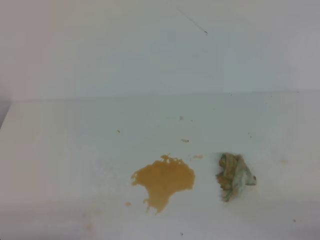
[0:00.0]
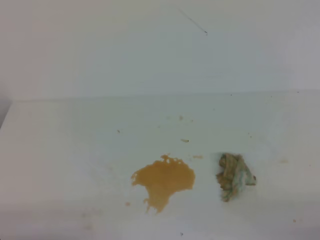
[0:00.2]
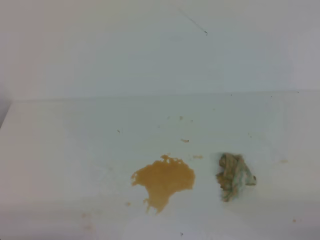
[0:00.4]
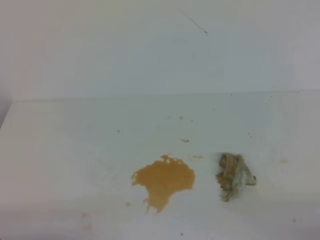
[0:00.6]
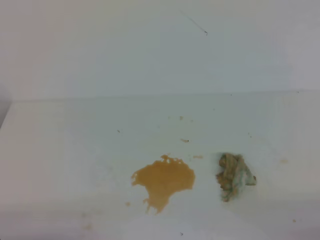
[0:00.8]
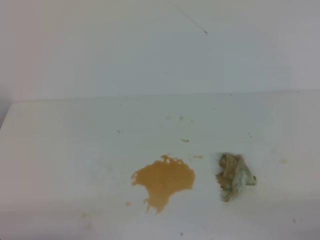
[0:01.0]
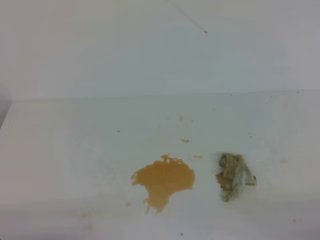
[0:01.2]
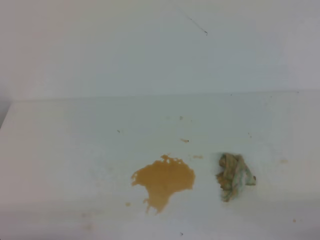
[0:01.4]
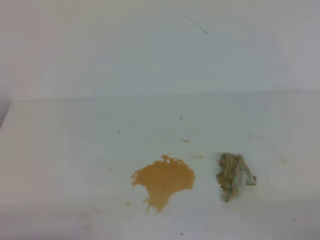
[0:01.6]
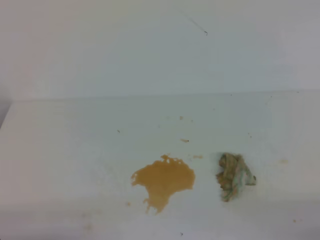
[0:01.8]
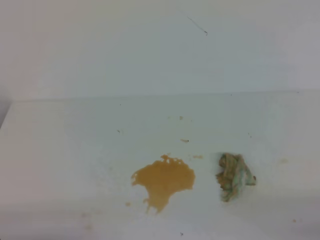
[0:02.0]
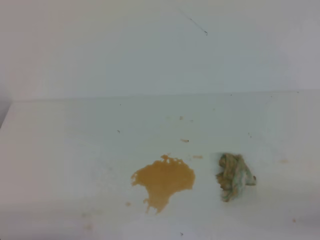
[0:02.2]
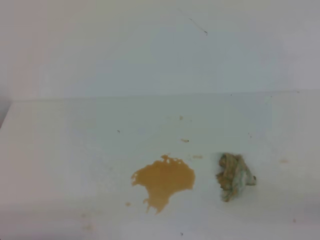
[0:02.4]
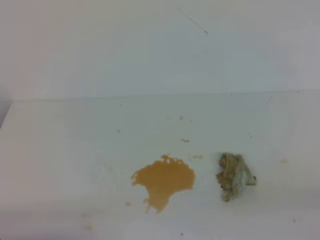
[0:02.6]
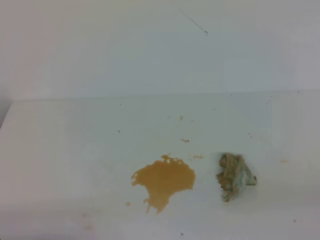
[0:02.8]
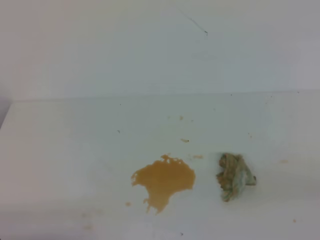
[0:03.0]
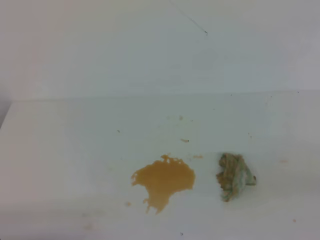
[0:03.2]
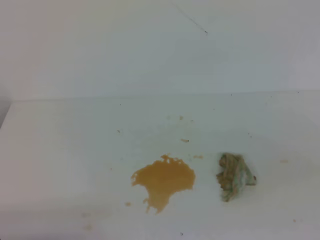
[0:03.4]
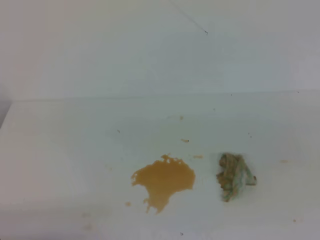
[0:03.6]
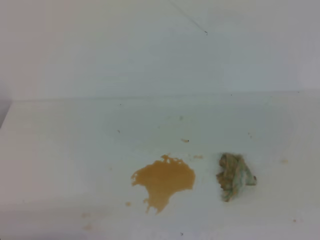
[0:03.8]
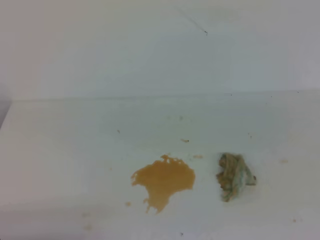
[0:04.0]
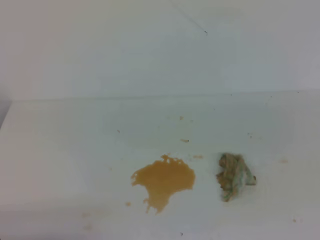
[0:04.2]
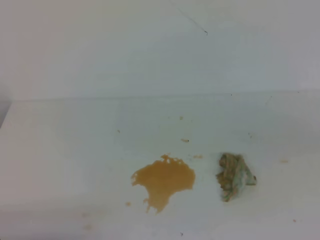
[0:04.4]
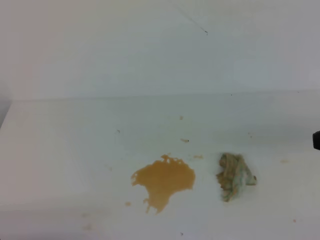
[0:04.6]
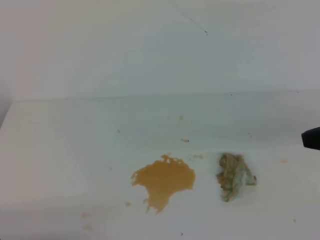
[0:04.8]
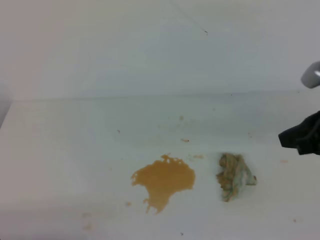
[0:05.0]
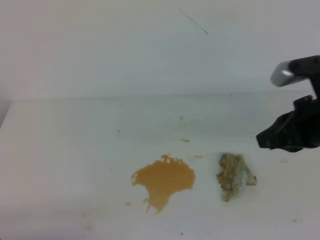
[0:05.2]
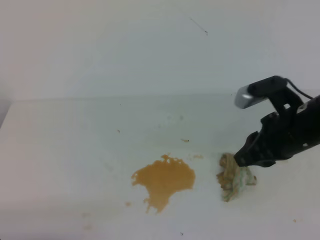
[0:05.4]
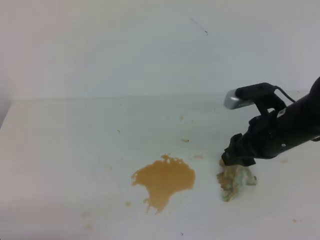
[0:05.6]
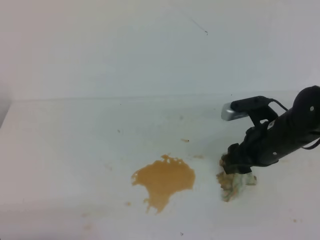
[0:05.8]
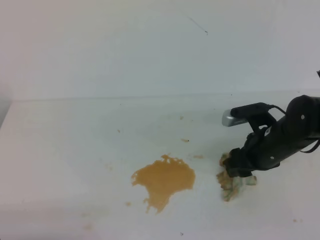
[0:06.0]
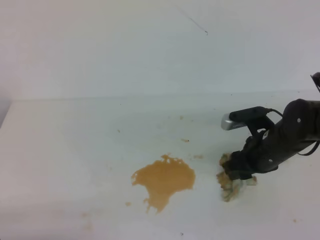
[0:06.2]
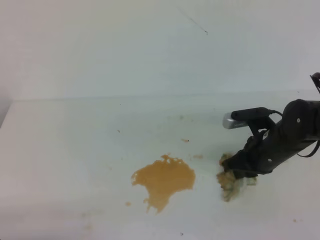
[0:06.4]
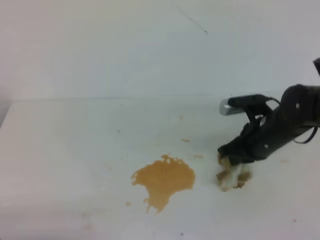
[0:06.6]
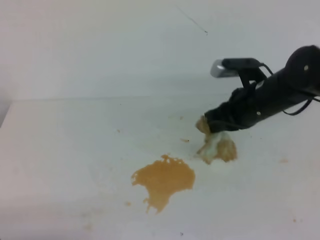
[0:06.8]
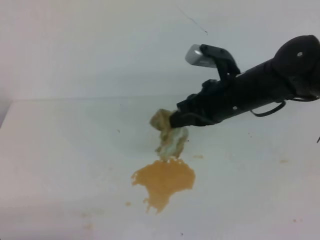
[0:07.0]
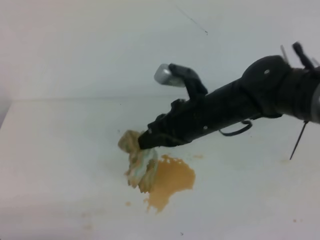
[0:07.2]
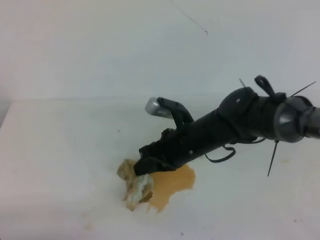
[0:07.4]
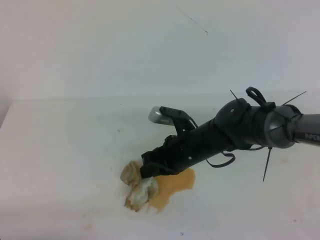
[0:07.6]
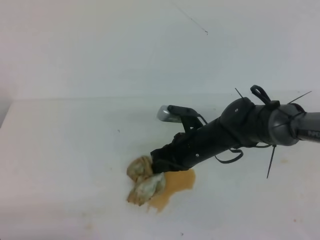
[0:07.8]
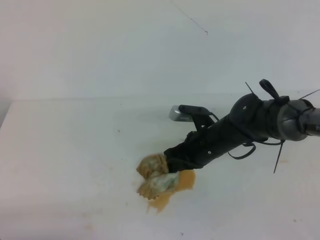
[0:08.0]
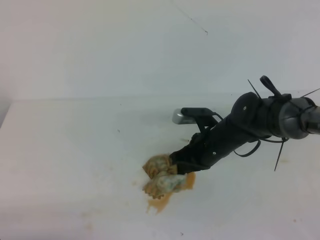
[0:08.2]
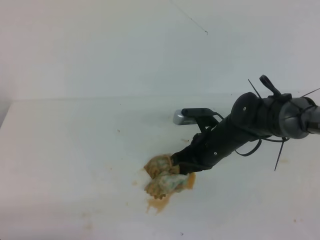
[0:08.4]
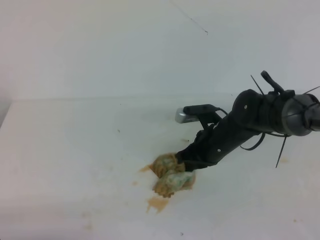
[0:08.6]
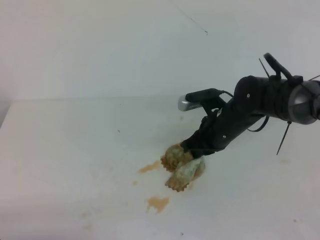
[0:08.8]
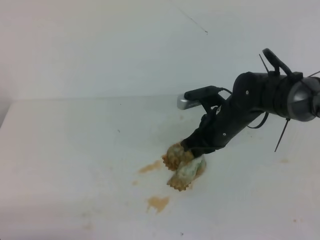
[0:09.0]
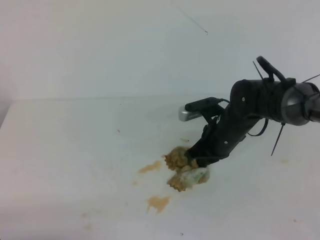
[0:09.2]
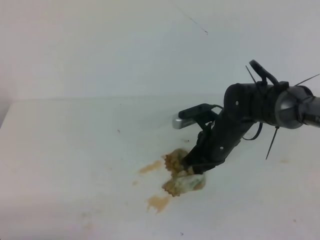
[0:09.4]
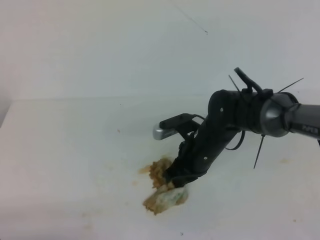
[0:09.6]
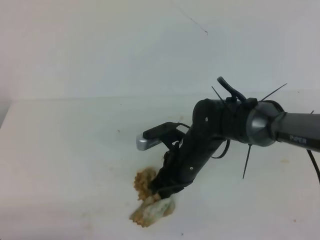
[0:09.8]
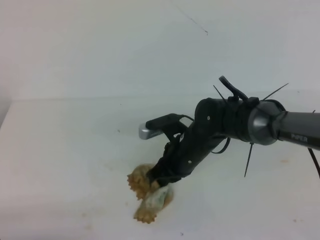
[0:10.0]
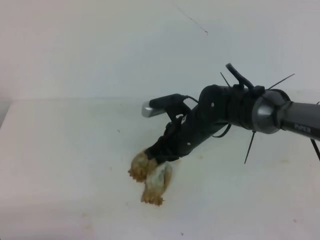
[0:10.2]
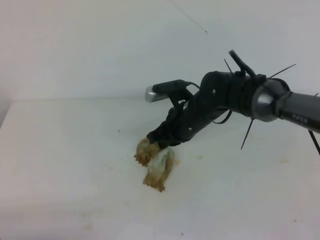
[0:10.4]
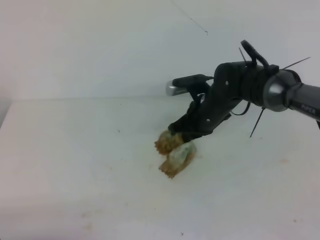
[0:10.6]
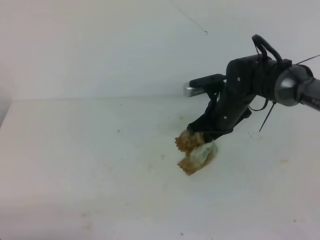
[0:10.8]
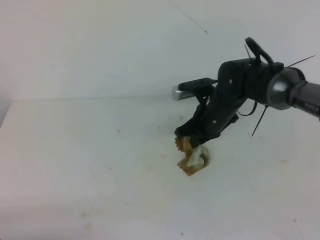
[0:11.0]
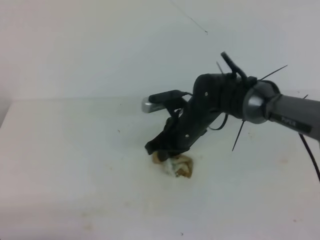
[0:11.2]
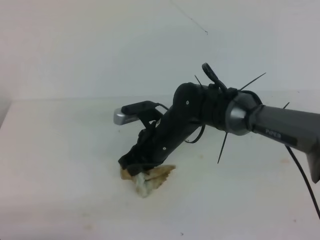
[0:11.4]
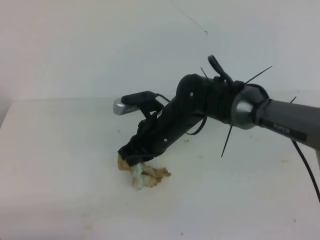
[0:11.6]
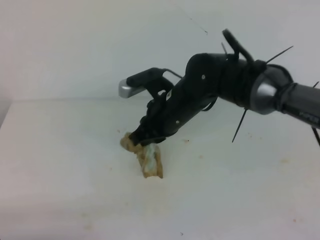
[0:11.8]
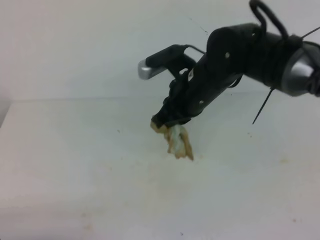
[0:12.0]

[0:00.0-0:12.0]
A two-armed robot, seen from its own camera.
0:04.4 to 0:06.0: The right gripper travels forward, downward and to the left by approximately 25 cm, and opens up.
0:06.0 to 0:07.6: The right gripper heads to the left, covering some 15 cm, and closes.
0:07.6 to 0:09.0: The right gripper travels to the right by approximately 5 cm.
0:09.0 to 0:10.4: The right gripper travels to the left by about 5 cm.
0:10.4 to 0:12.0: The right gripper goes roughly 10 cm upward.

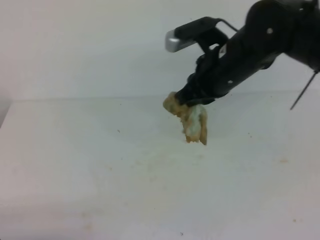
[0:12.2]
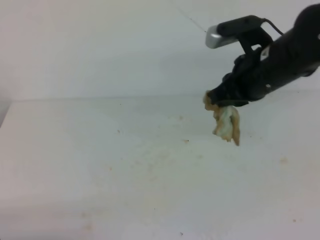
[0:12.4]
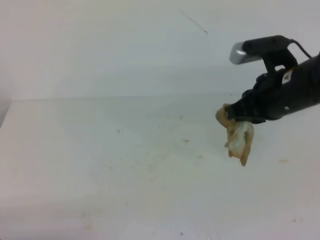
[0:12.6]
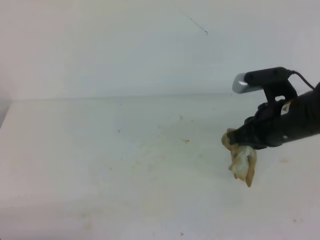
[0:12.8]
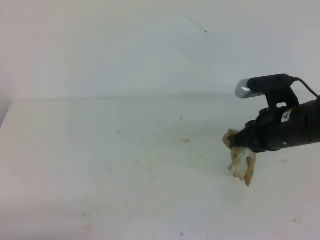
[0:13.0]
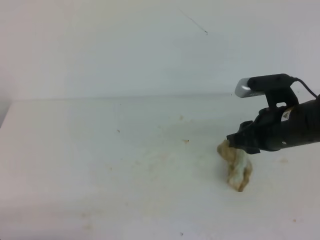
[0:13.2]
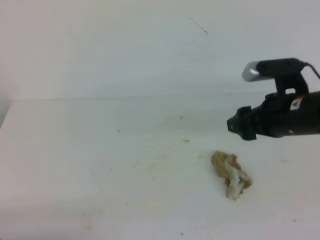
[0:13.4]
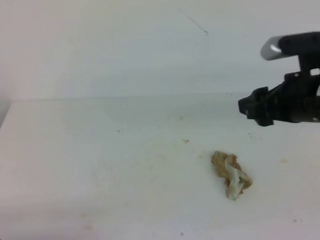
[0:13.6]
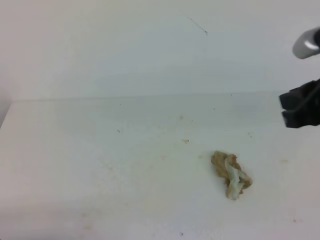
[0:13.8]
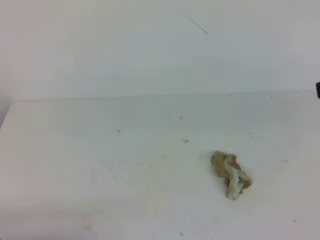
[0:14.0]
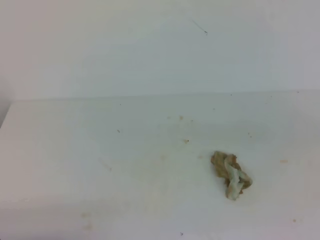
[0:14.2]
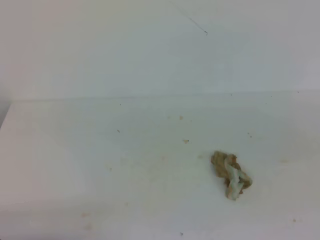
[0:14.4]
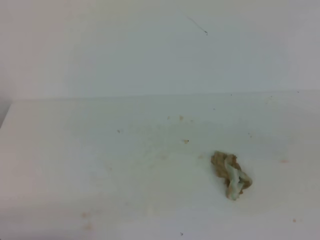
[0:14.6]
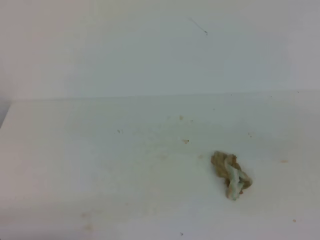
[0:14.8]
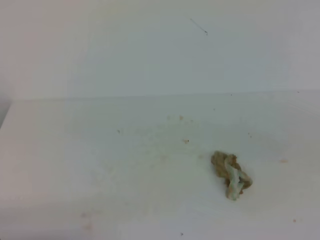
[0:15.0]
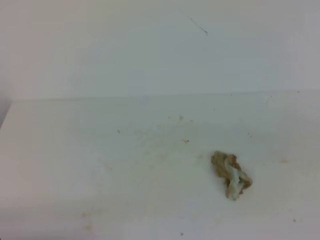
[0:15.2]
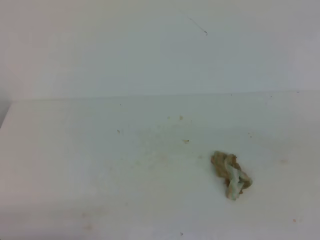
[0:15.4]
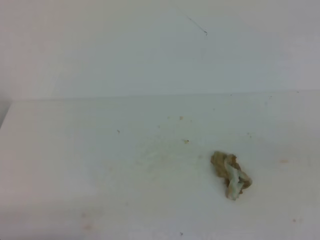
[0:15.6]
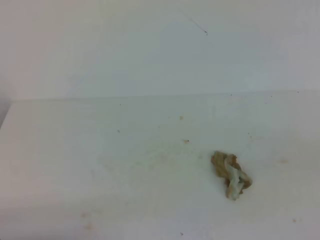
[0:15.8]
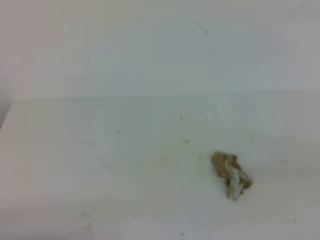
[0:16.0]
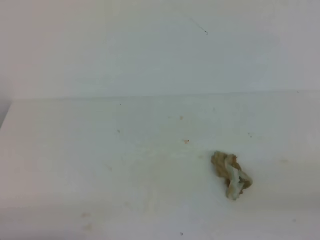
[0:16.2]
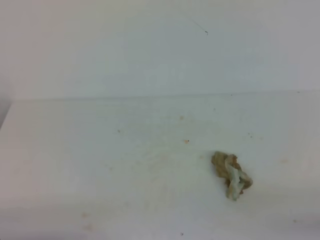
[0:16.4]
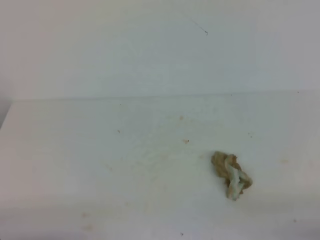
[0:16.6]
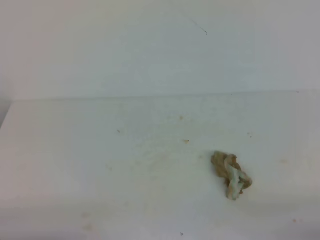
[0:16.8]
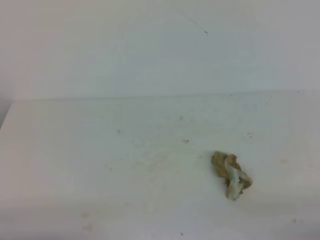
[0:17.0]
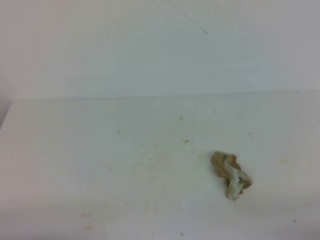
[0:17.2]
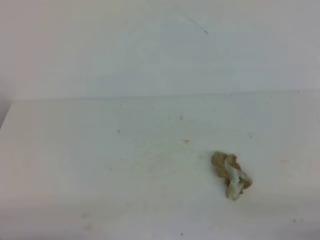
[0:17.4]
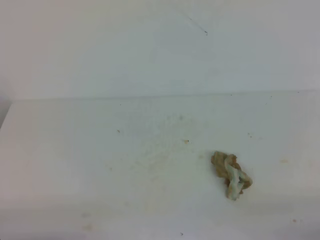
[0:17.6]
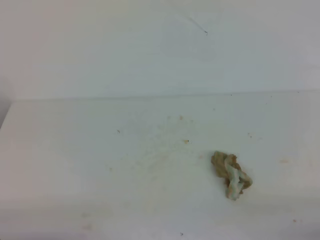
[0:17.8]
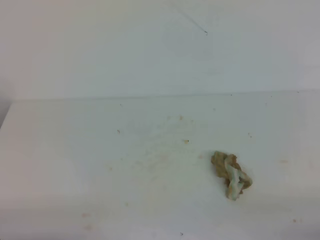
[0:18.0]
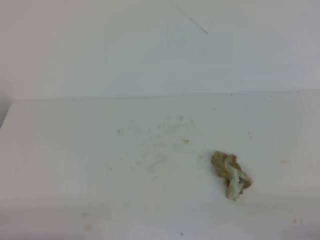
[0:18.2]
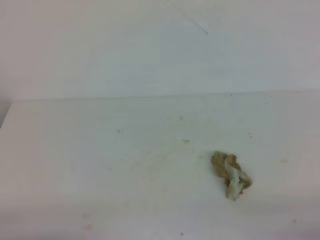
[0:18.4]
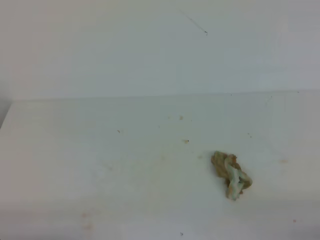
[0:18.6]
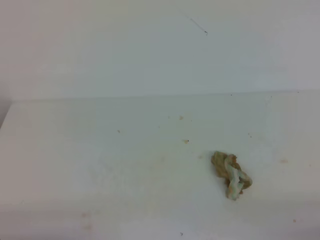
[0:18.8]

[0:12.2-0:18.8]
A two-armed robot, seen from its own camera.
0:12.2 to 0:13.8: The right gripper shifts approximately 15 cm backward and to the right, and opens and closes again.
0:13.8 to 0:15.4: The right gripper travels backward and to the right by approximately 20 cm.
0:17.2 to 0:18.8: The two grippers keep their place.
